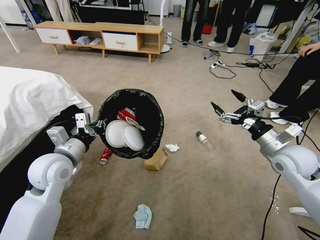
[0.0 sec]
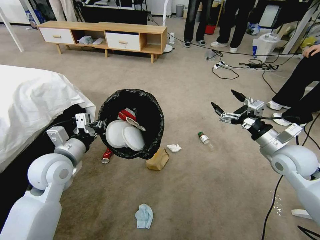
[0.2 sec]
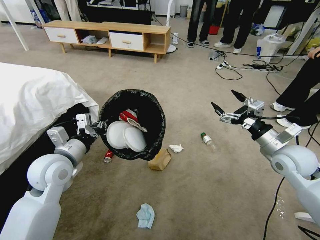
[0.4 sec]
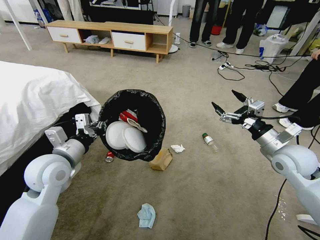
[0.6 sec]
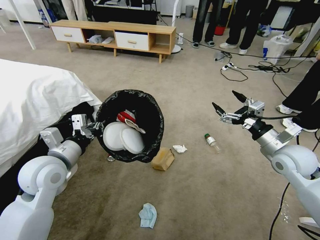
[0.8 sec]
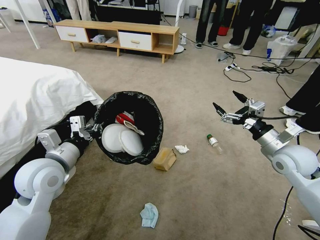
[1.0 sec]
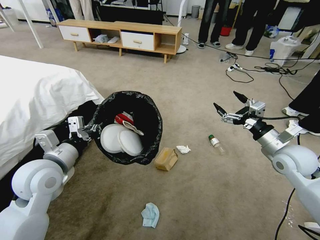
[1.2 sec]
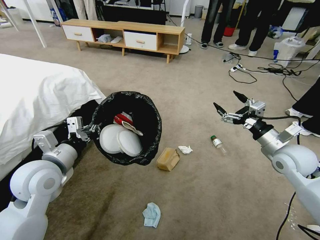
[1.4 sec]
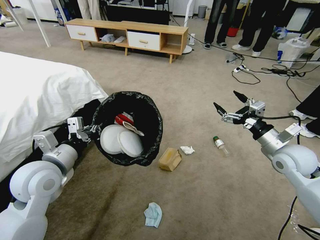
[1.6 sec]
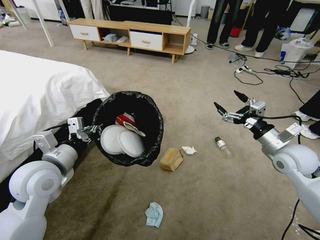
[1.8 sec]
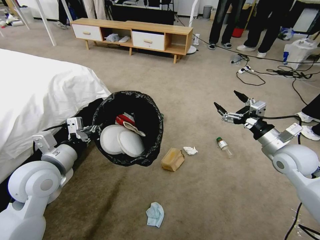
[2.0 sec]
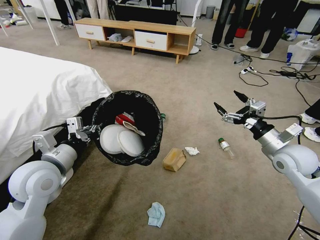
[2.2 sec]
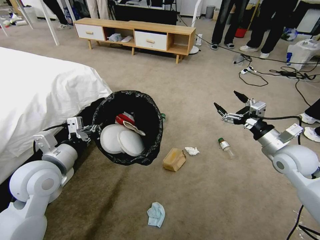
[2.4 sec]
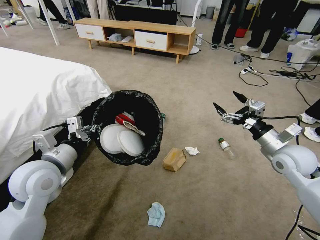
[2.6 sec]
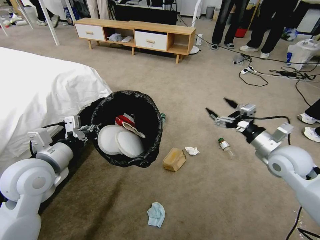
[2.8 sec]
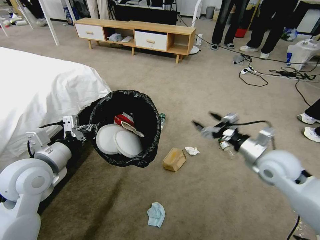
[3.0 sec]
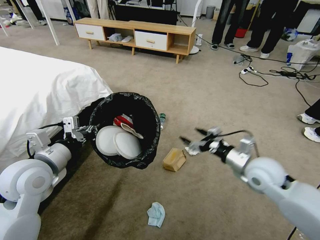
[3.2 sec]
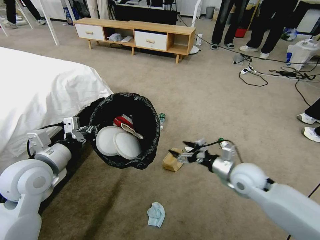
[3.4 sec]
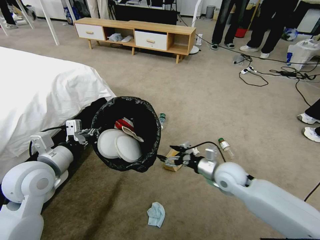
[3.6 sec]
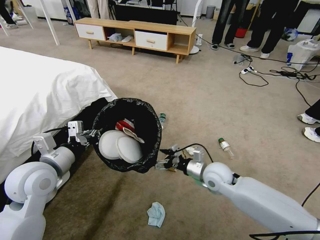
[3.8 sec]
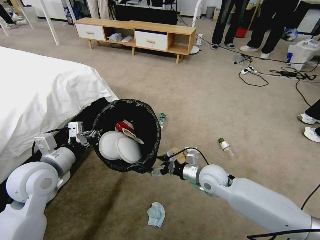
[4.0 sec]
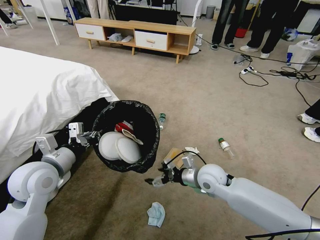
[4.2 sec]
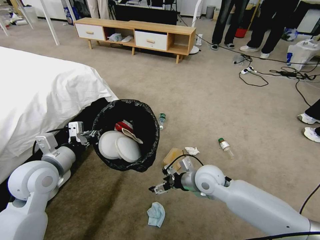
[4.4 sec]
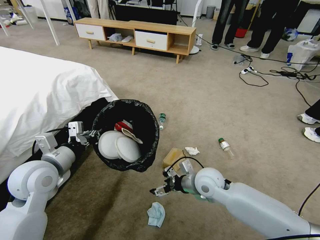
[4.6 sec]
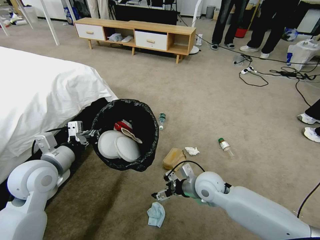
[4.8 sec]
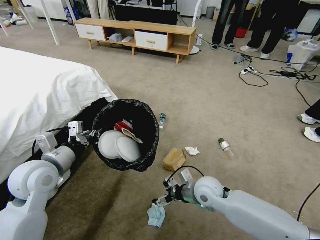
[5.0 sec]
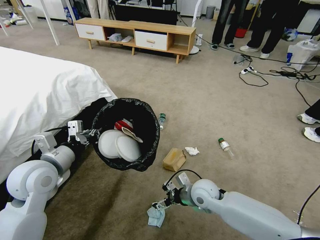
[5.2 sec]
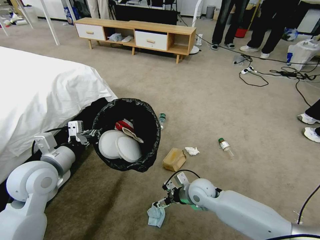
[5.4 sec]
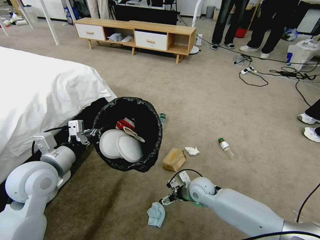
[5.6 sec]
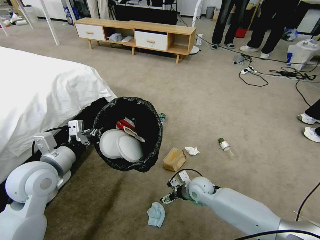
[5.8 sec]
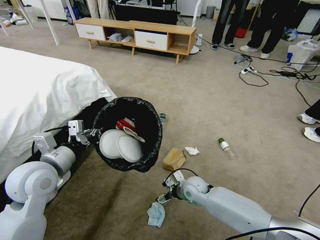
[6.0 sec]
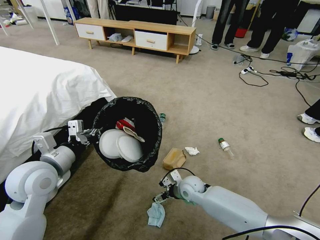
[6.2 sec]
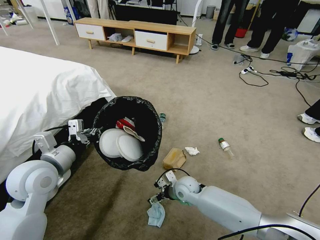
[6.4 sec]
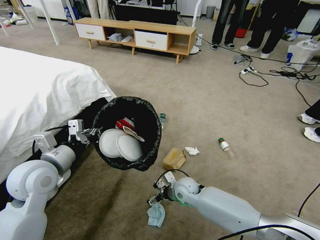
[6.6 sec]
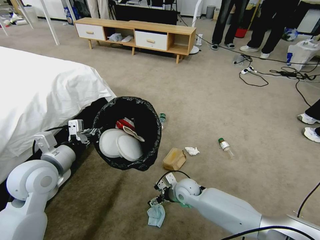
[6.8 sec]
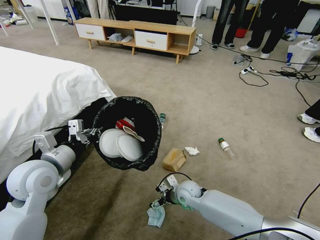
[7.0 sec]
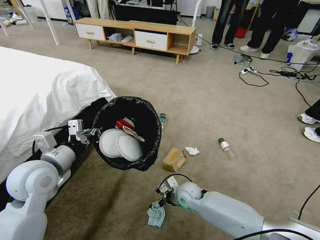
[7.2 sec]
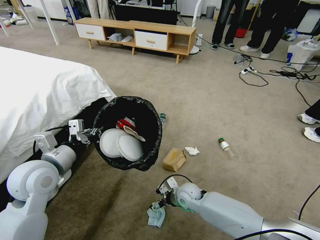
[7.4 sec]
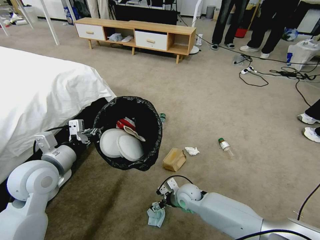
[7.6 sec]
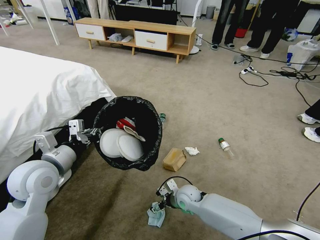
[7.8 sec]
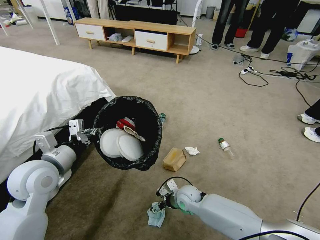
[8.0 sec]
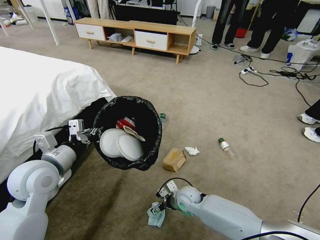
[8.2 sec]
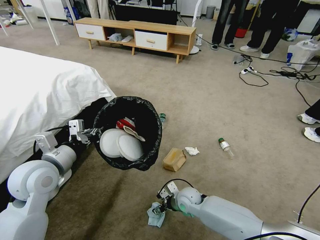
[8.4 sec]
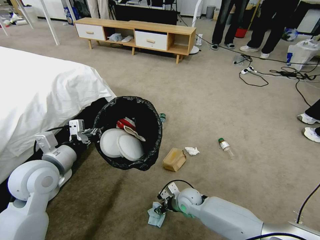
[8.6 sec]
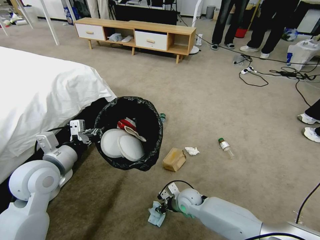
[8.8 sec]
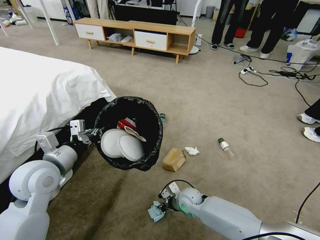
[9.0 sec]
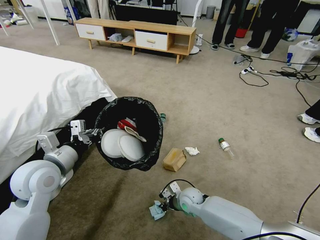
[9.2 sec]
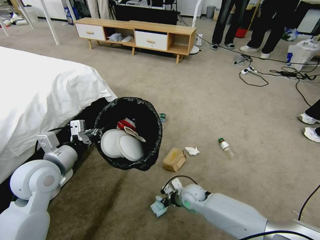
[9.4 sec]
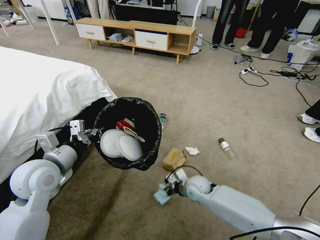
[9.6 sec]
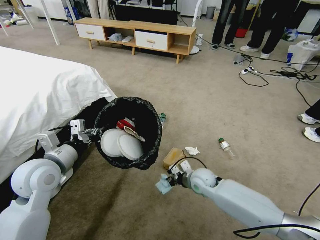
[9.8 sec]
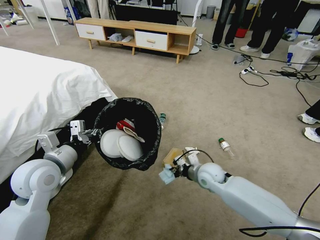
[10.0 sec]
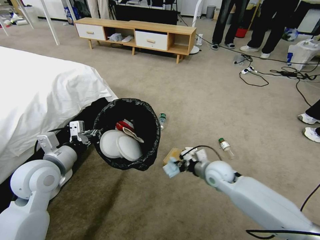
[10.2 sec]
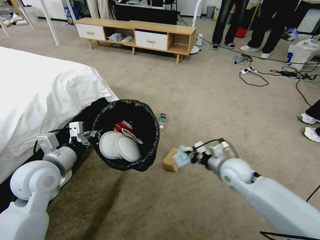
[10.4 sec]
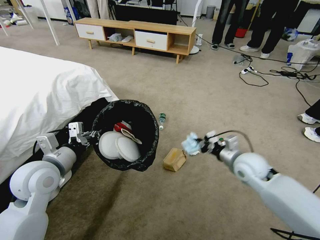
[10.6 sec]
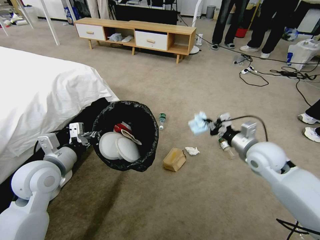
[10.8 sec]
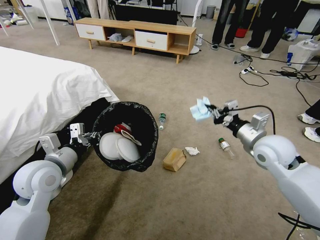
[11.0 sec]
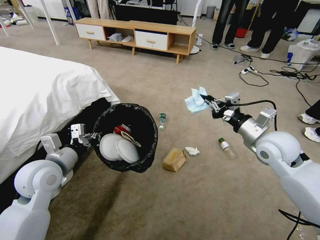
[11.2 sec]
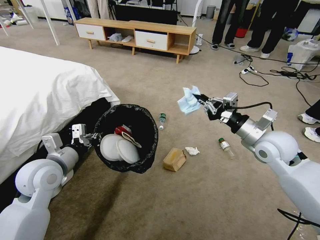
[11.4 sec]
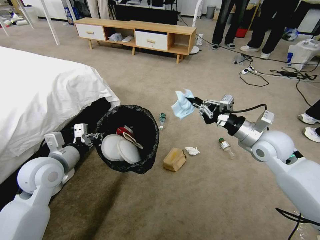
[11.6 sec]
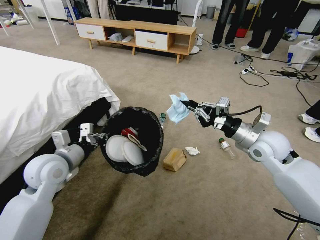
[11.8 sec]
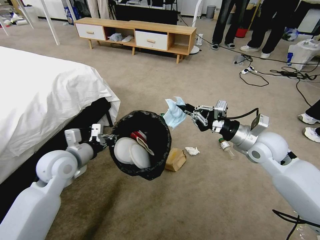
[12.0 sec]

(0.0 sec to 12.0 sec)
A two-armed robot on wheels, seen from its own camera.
Task of the whole recording: Pick up the trash bin and place the garbage on the floor into it.
3.0 sec - 4.4 sec: The right gripper goes some 20 cm to the left and downward.
4.4 sec - 6.0 sec: The right gripper shifts about 15 cm downward.
6.0 sec - 7.6 sec: The grippers make only small movements.
7.6 sec - 9.0 sec: The right gripper closes.
9.0 sec - 10.4 sec: The right gripper travels upward and to the right by approximately 20 cm.
10.4 sec - 12.0 sec: The right gripper moves upward, some 15 cm.

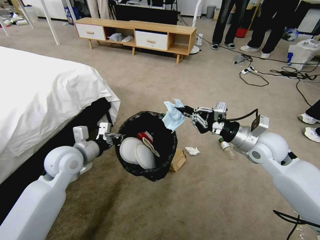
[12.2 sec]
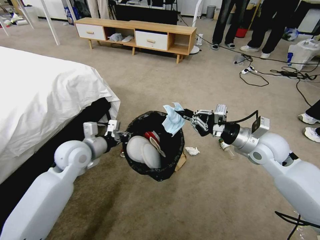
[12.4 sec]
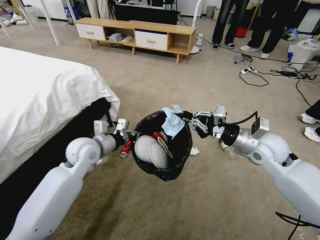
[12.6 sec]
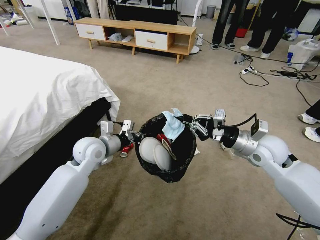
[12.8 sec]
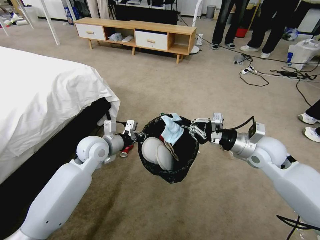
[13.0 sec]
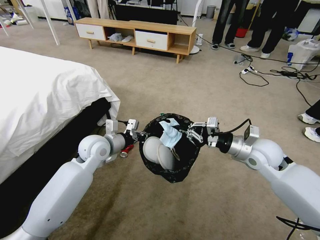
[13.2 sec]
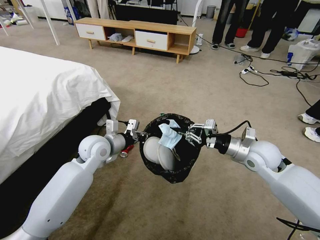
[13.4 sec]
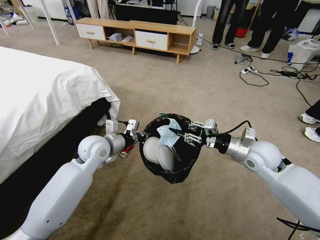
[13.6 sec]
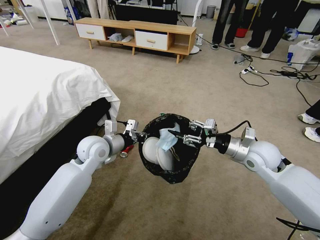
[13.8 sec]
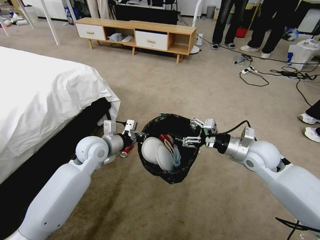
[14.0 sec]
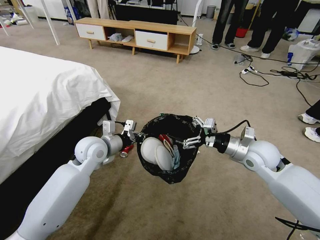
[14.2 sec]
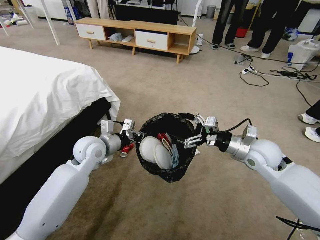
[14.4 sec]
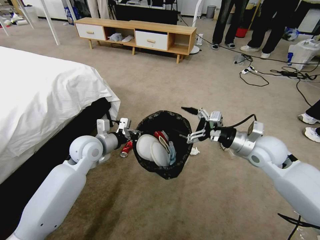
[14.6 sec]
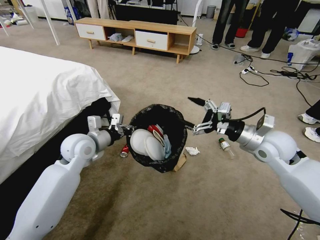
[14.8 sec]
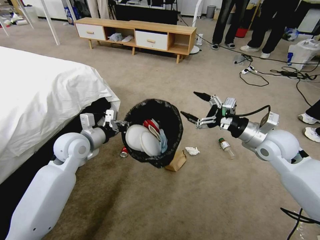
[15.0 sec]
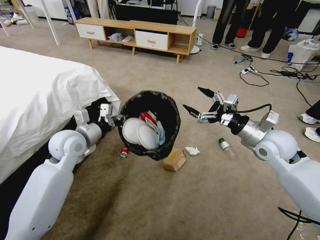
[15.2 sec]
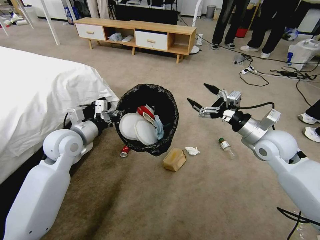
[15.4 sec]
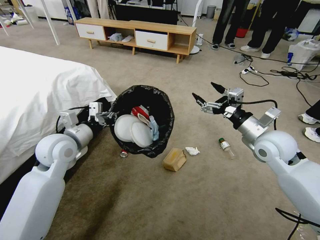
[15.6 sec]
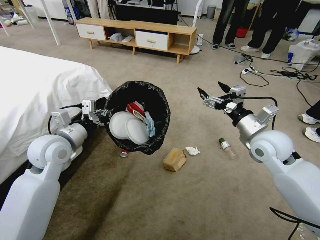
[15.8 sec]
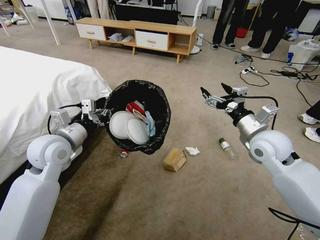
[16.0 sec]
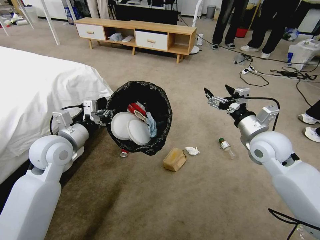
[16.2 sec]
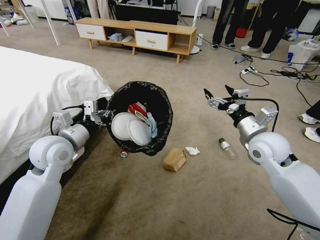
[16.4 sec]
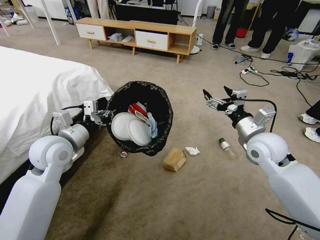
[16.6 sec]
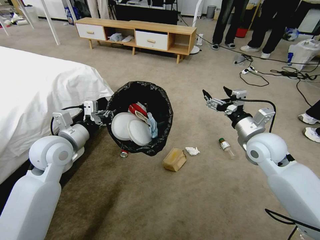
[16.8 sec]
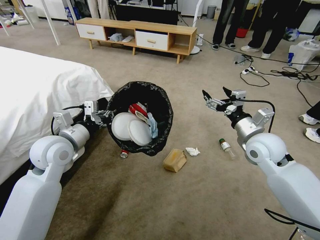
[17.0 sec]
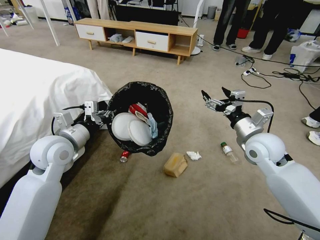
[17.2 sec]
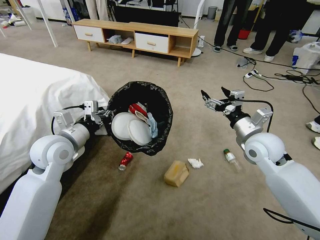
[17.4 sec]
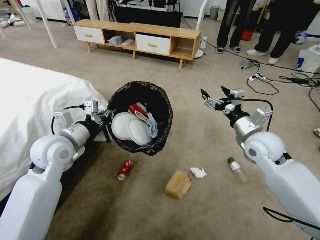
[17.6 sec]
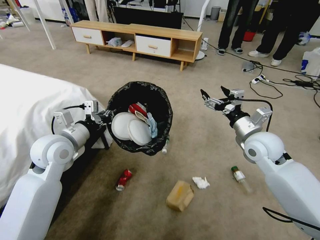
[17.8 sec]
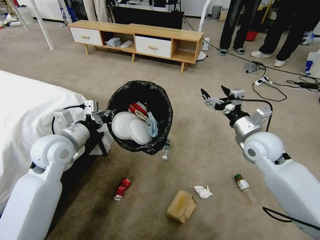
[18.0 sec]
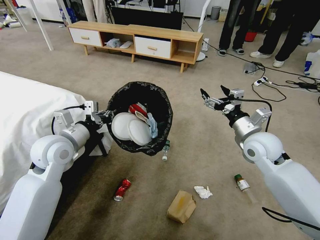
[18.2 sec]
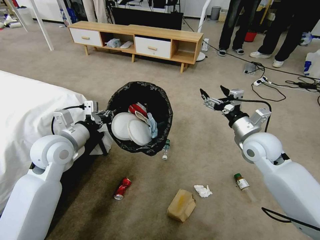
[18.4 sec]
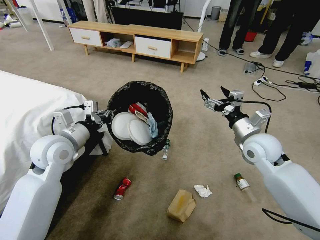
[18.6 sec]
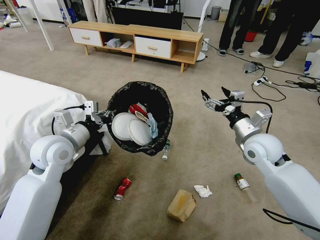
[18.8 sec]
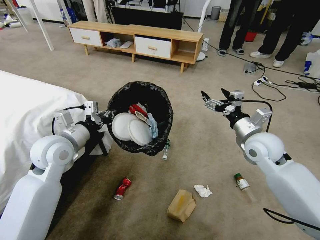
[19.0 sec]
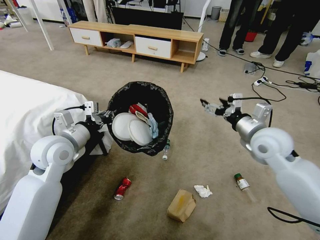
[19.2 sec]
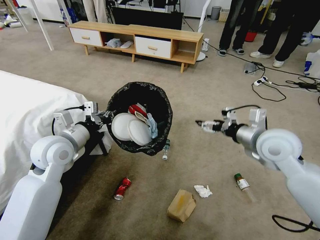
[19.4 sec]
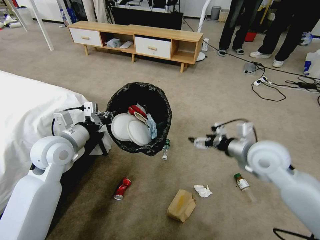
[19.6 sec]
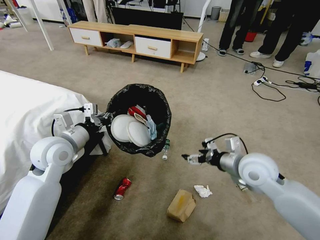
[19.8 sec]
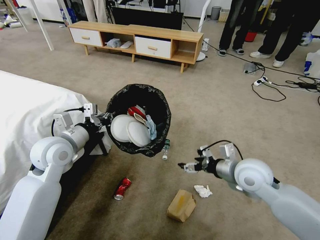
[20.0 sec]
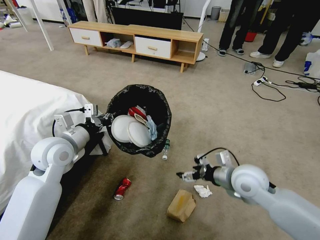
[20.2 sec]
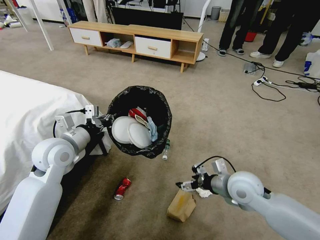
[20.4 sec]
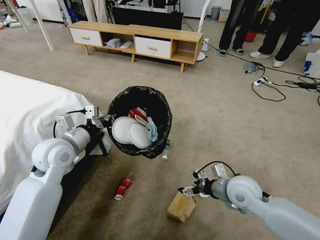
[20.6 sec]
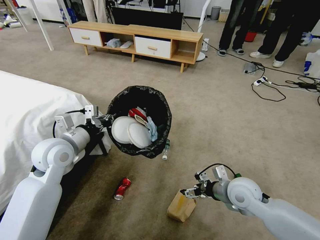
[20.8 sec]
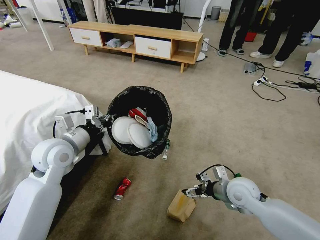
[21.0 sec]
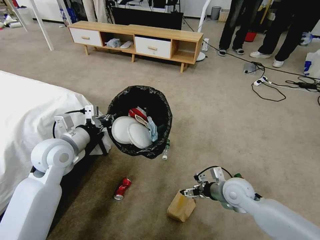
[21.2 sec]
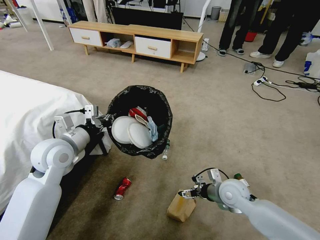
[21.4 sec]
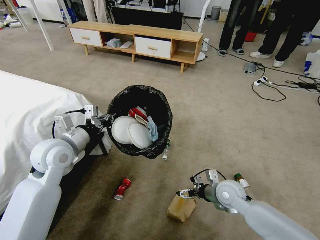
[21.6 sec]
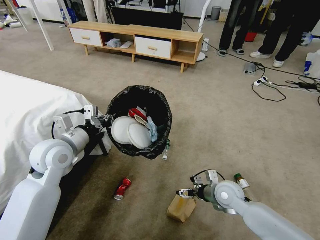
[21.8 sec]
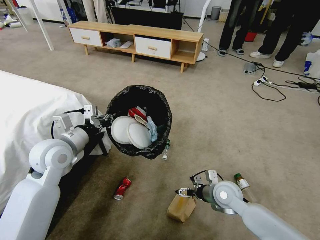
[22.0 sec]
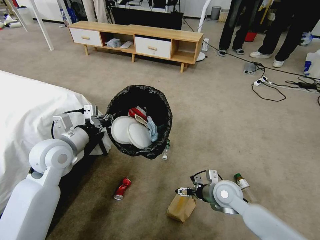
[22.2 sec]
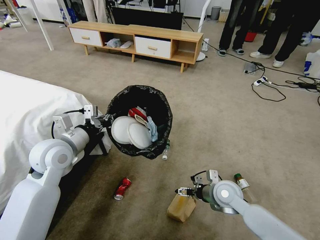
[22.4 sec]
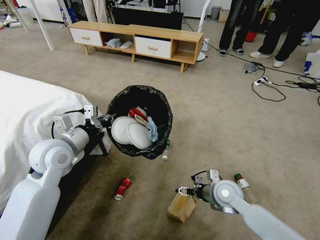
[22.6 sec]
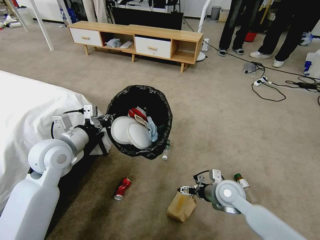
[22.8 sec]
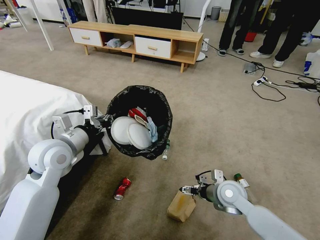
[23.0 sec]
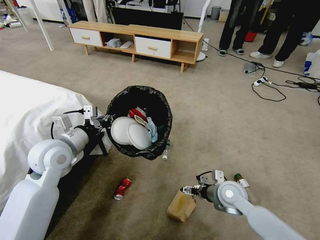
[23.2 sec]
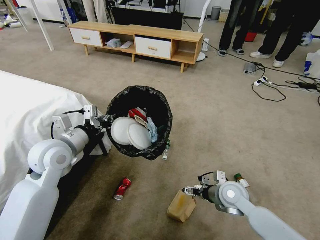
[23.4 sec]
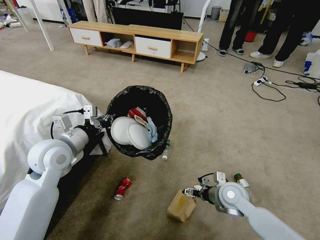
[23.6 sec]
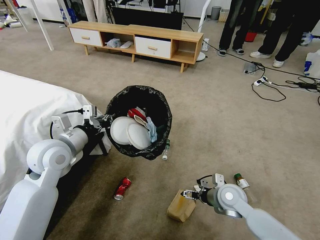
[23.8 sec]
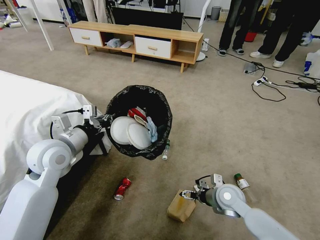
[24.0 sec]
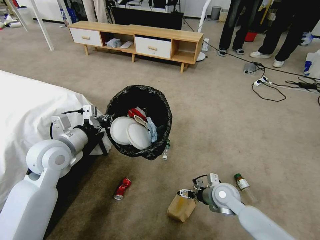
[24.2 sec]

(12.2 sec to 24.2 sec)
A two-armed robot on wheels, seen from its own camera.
Task of the whole recording: Pick up the trash bin and place the garbage on the floor into it.
12.2 sec - 13.8 sec: The right gripper opens its fingers. The left gripper travels to the right and forward by some 10 cm.
13.8 sec - 15.2 sec: The right gripper changes place by some 5 cm, and opens. Meanwhile the left gripper shifts roughly 5 cm to the left.
15.2 sec - 16.6 sec: The left gripper shifts by some 5 cm.
18.2 sec - 19.8 sec: The right gripper shifts about 5 cm backward.
19.8 sec - 21.2 sec: The right gripper travels downward by approximately 15 cm.
21.2 sec - 22.6 sec: There are only small adjustments of the grippers.
22.6 sec - 24.2 sec: The grippers stay close to where they were, moving slightly.
